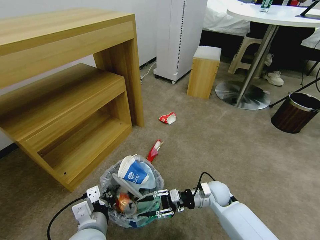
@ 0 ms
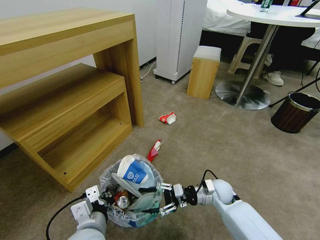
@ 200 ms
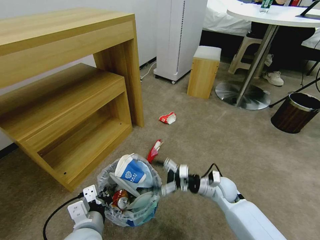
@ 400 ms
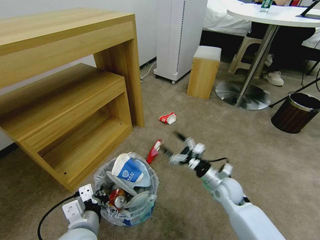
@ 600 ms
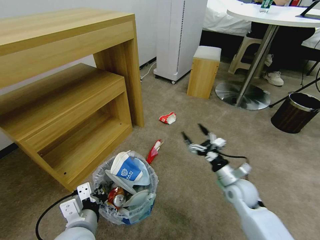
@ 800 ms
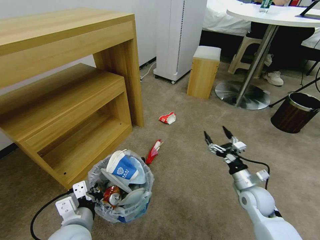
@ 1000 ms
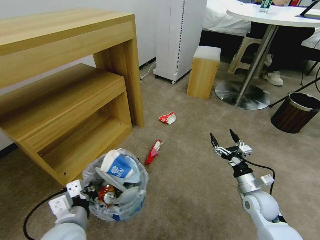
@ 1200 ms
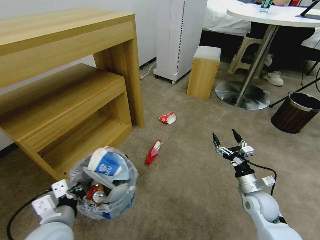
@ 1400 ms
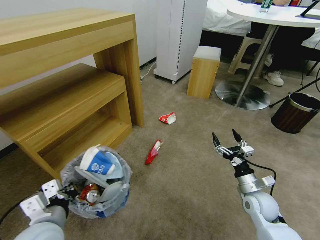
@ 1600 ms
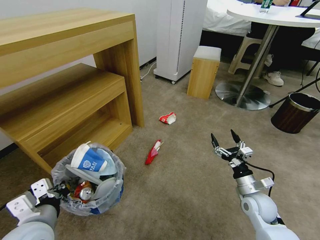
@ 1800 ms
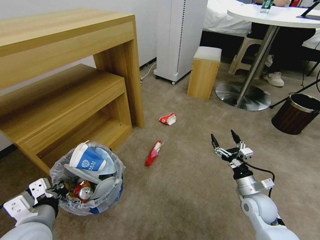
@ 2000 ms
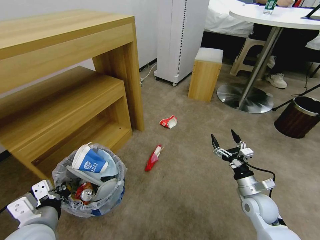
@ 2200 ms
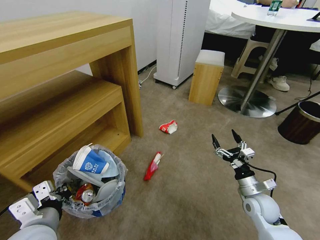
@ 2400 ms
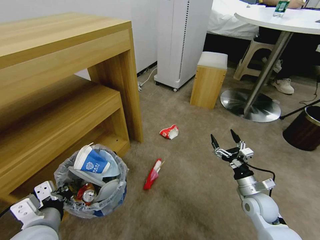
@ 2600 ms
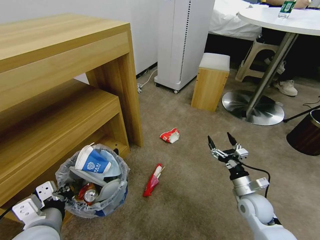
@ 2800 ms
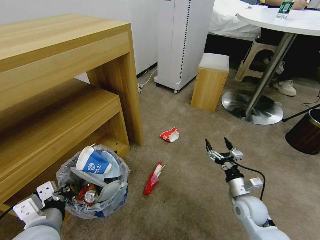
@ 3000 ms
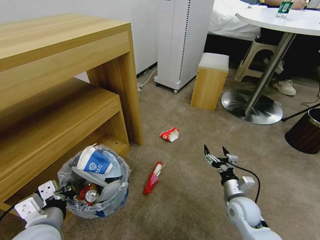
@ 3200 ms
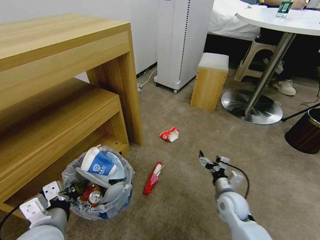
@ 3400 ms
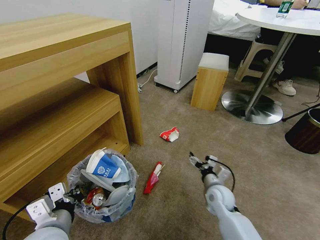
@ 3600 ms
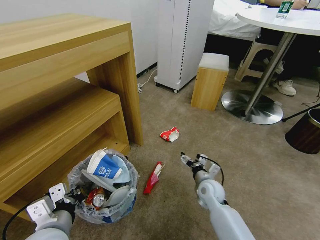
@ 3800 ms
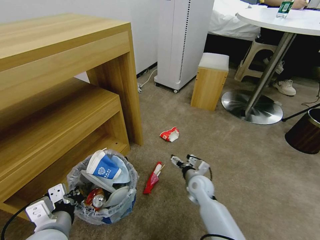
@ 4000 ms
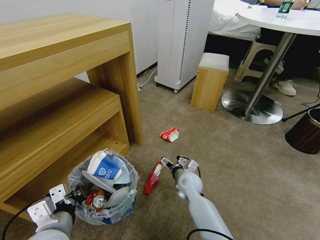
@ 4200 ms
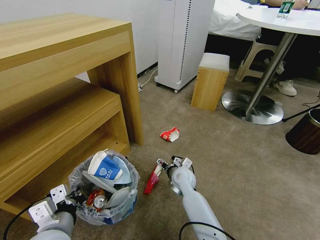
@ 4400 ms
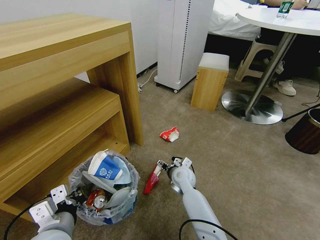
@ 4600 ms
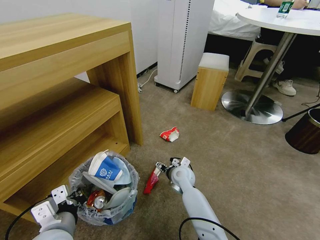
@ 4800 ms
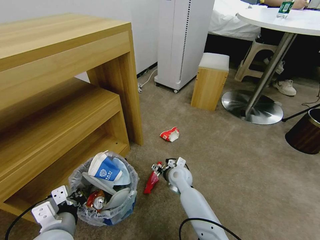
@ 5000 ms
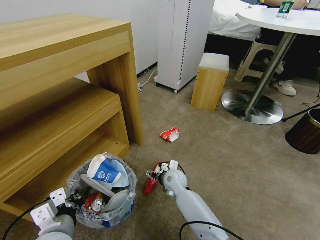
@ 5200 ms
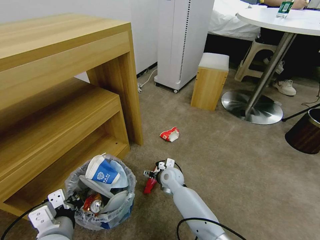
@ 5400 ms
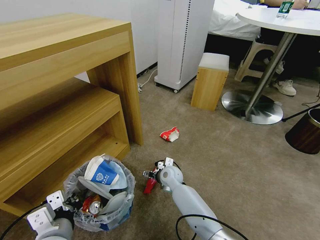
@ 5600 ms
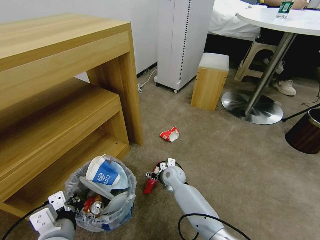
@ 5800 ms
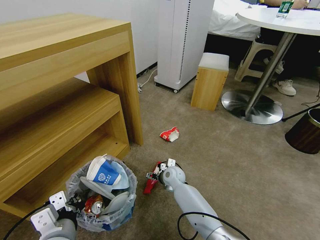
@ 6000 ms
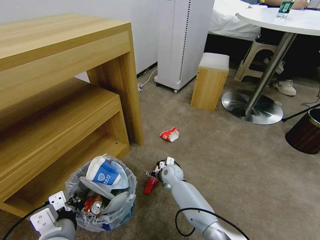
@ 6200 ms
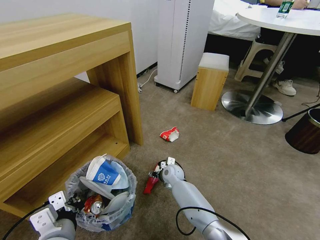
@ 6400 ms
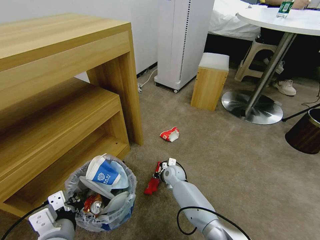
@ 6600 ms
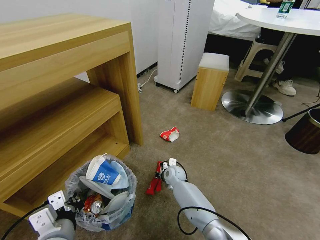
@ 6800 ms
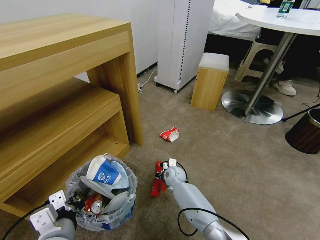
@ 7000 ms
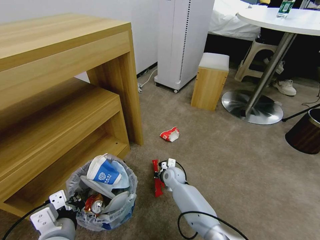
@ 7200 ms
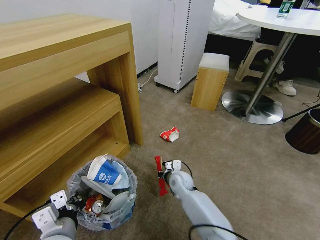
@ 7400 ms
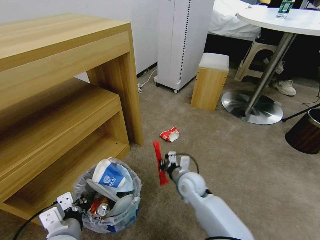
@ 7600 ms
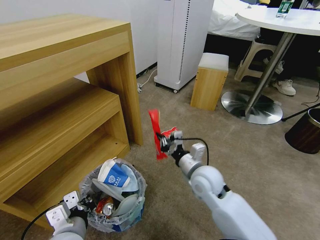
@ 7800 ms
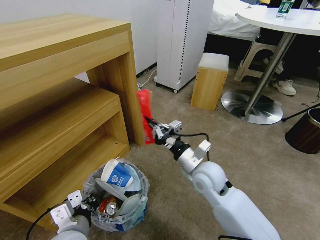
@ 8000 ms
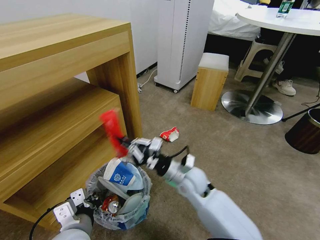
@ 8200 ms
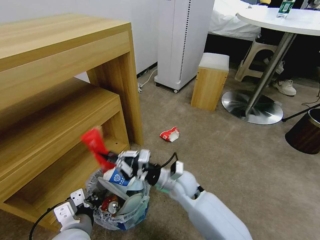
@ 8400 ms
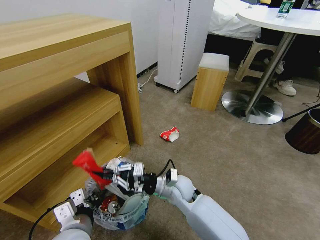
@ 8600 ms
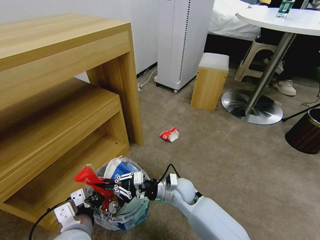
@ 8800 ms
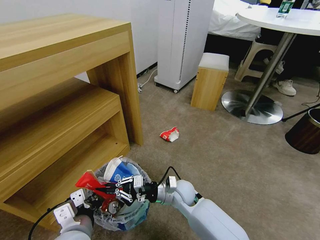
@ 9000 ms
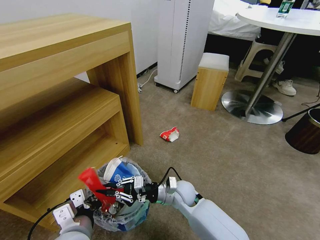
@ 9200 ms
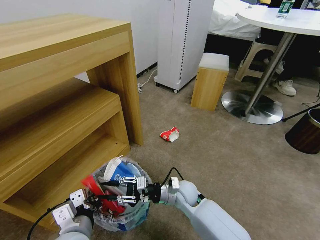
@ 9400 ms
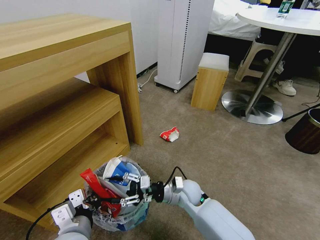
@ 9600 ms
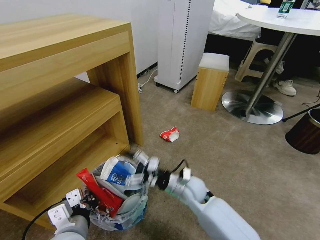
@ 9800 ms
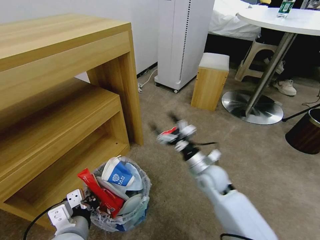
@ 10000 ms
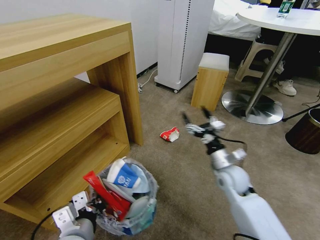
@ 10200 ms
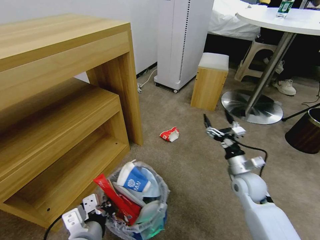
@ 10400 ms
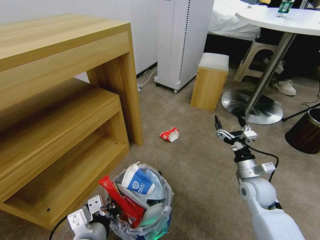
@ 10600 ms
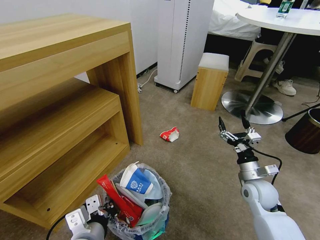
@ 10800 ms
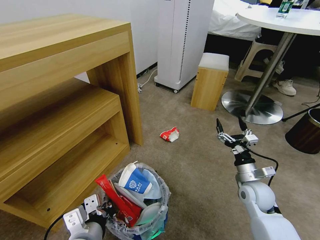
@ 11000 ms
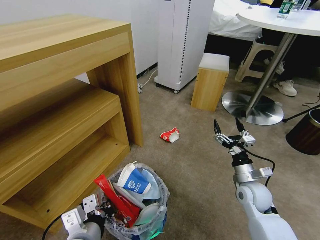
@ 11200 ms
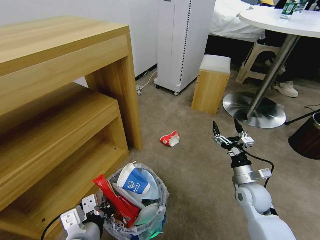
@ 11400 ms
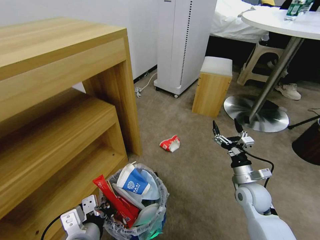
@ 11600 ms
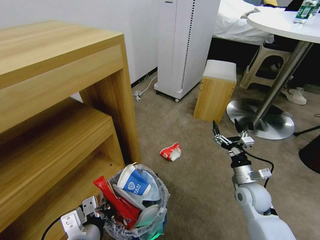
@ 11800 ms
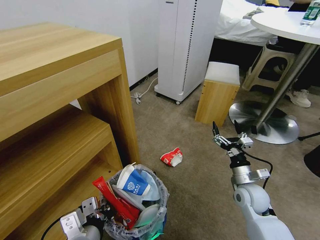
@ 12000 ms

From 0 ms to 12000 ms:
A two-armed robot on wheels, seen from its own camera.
Task of the whole recording: Pick up the trash bin and place the garbage on the floor into it.
From 0 ms to 1600 ms: The right gripper heads to the right and backward, covering roughly 15 cm, and opens its fingers. Meanwhile the left gripper is displaced to the left by approximately 10 cm.
From 3000 ms to 4400 ms: The right gripper shifts approximately 25 cm to the left and forward.
From 4400 ms to 6000 ms: The right gripper shifts by roughly 5 cm.
From 6000 ms to 7600 ms: The right gripper travels upward and backward by some 10 cm, and closes its fingers.
From 7600 ms to 9000 ms: The right gripper moves about 10 cm upward and comes back.
From 9000 ms to 10400 ms: The right gripper goes some 25 cm to the right, and opens its fingers.

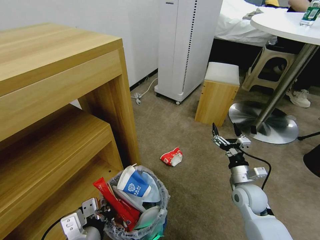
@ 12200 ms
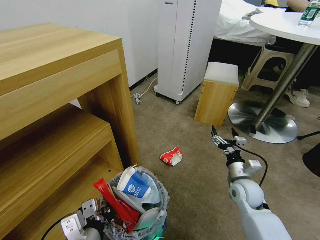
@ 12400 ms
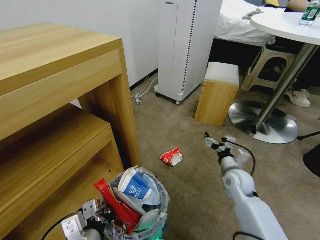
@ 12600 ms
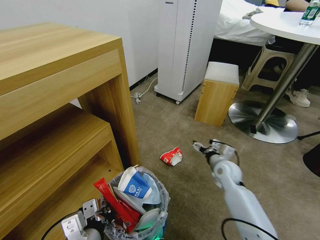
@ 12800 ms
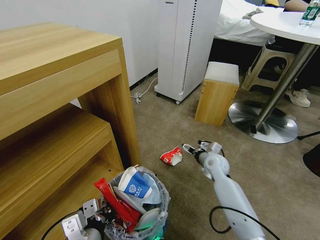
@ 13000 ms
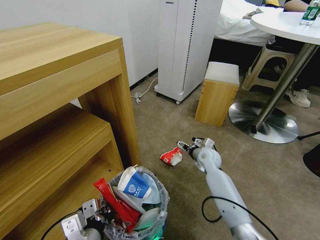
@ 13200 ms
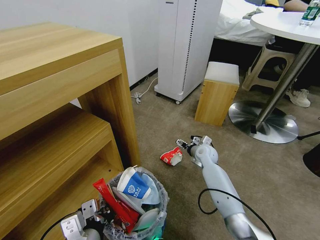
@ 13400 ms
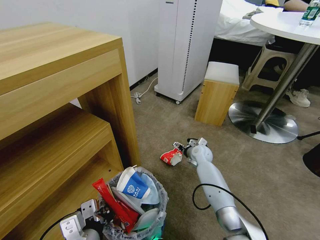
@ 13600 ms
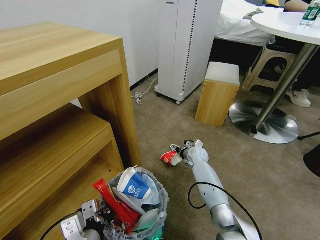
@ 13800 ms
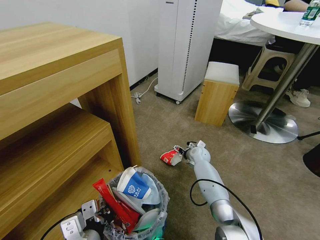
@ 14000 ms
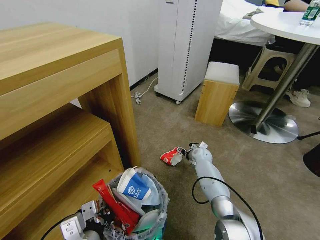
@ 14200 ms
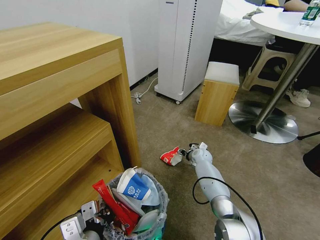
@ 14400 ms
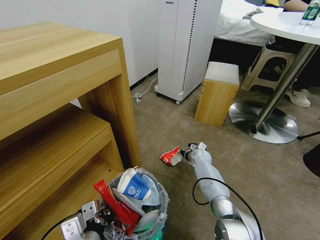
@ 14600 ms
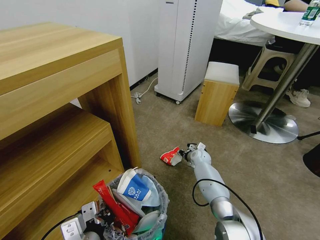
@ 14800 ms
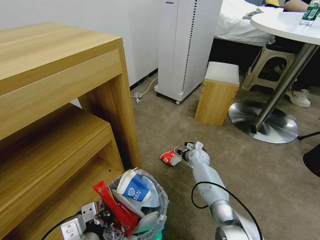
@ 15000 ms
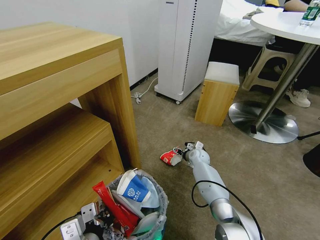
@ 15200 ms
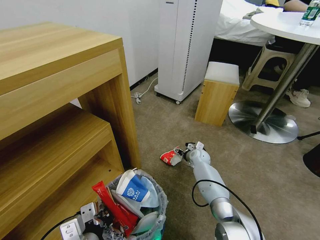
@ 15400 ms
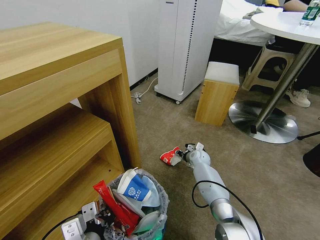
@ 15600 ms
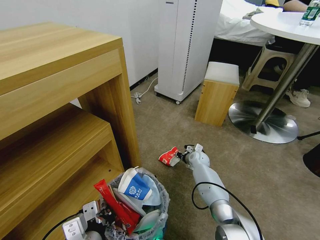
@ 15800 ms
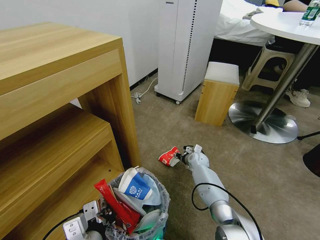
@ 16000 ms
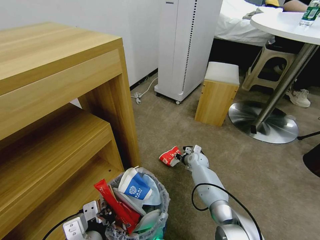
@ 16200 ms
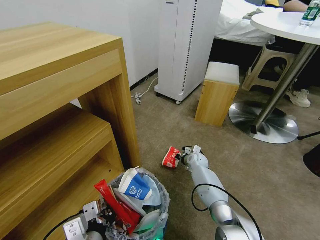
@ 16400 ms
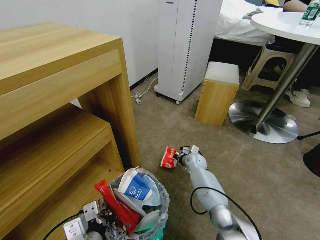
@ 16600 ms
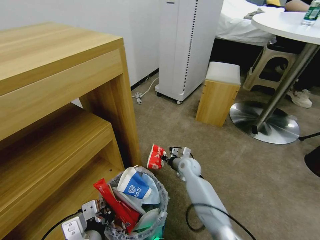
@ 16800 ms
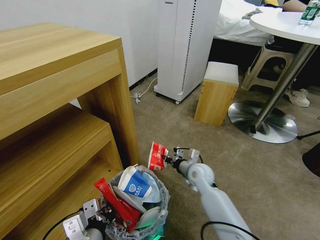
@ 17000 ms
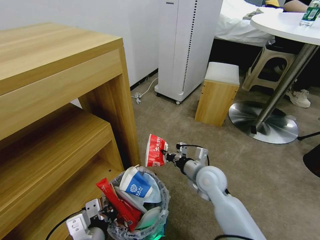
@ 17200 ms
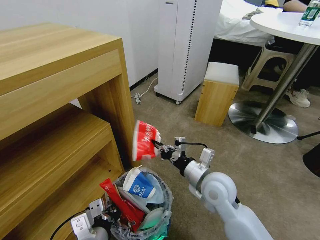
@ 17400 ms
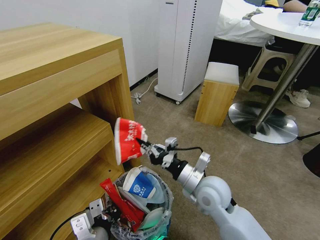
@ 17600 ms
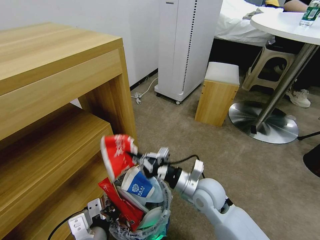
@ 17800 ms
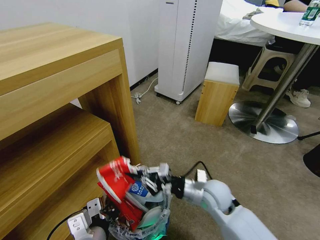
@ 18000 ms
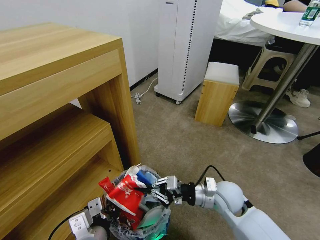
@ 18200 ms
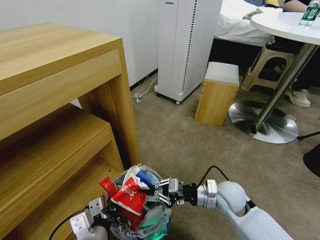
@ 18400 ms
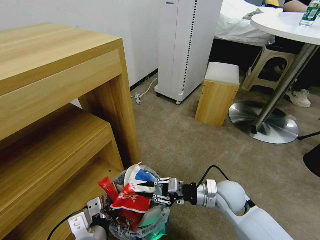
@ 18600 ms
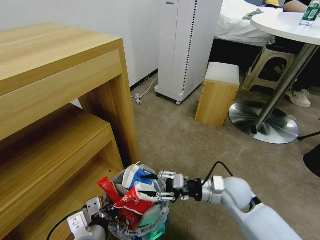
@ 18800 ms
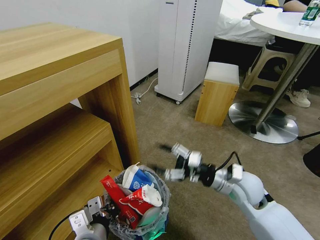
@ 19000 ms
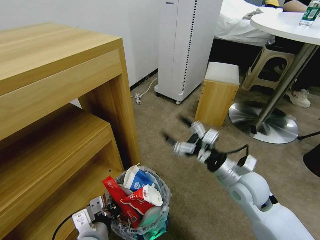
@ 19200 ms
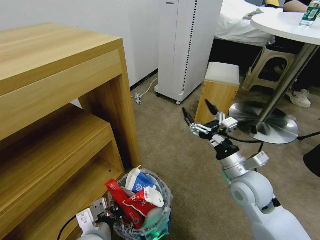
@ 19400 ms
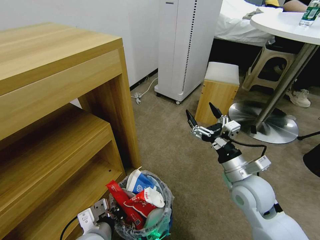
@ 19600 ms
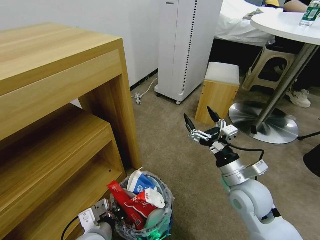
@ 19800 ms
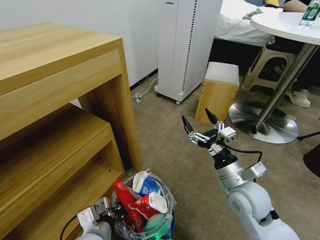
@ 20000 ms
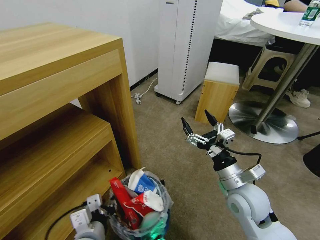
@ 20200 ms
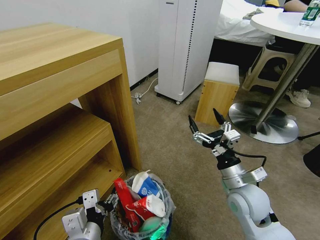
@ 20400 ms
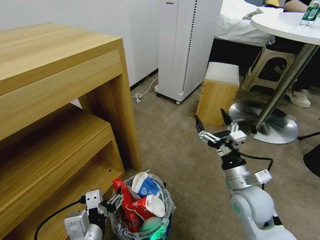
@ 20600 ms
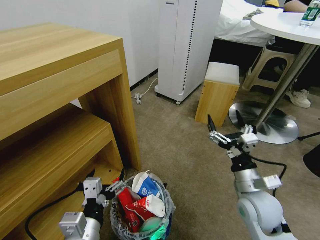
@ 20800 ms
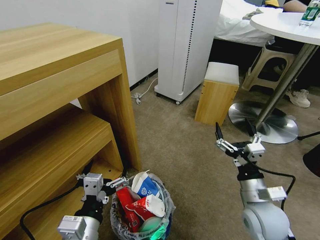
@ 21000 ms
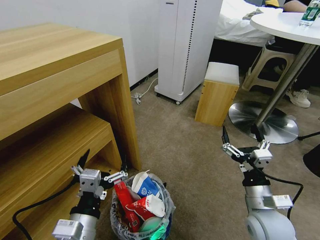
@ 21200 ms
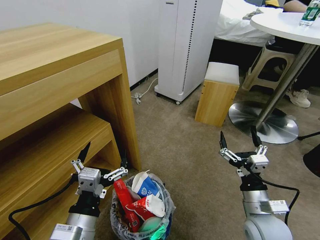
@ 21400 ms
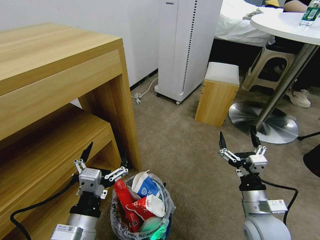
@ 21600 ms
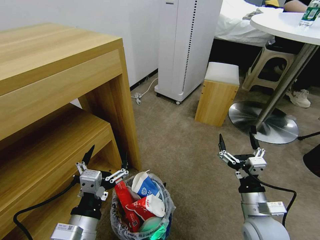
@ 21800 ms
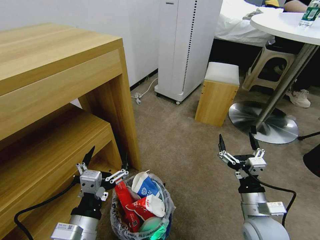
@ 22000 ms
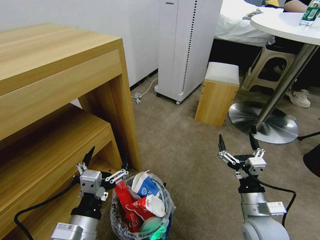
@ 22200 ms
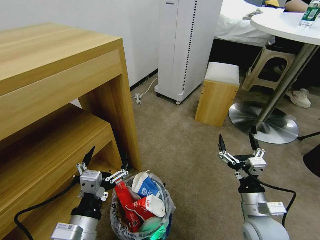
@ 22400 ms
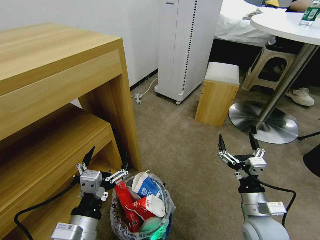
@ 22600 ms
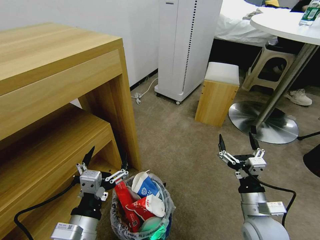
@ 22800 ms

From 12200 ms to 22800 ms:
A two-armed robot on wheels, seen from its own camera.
Task of the whole recording: Pick up the trash bin and place the garbage on the floor into it.
From 12200 ms to 13800 ms: The right gripper travels forward and to the left by some 25 cm.
From 13800 ms to 15200 ms: The right gripper closes, then reopens.
From 15200 ms to 16800 ms: The right gripper moves to the left and backward, approximately 10 cm, and closes.
From 16800 ms to 18200 ms: The right gripper is displaced backward, upward and to the right by roughly 20 cm.
From 18200 ms to 19800 ms: The right gripper shifts some 5 cm upward, and opens up; the left gripper moves about 5 cm.
From 19800 ms to 21200 ms: The right gripper travels backward by some 5 cm. Meanwhile the left gripper heads upward, covering about 5 cm, and opens.
From 21200 ms to 22800 ms: The grippers make only small movements.
